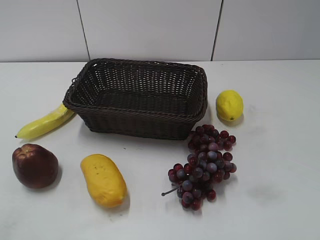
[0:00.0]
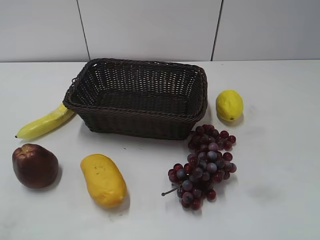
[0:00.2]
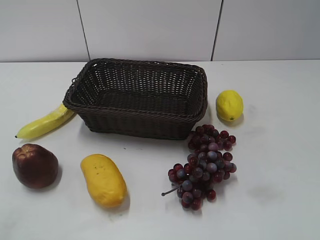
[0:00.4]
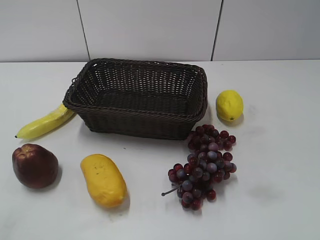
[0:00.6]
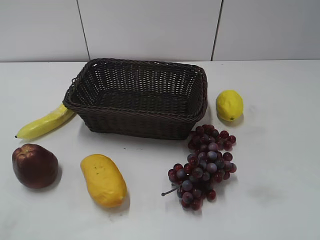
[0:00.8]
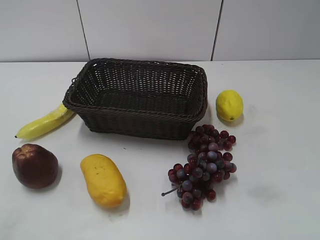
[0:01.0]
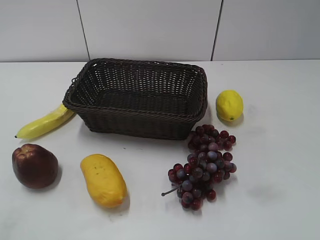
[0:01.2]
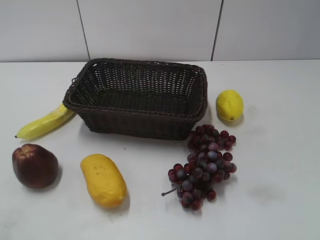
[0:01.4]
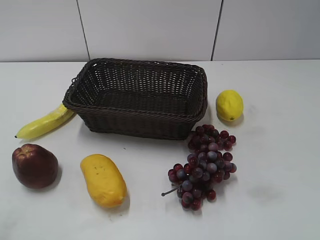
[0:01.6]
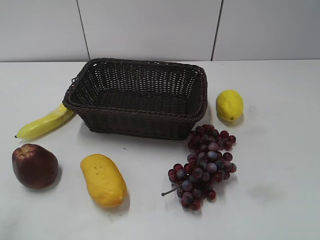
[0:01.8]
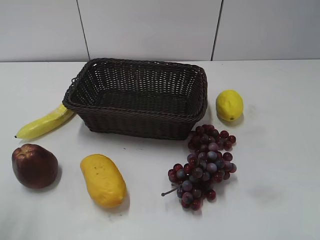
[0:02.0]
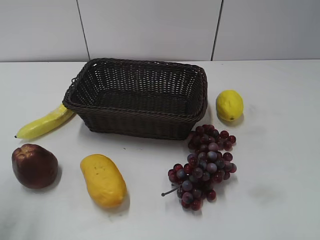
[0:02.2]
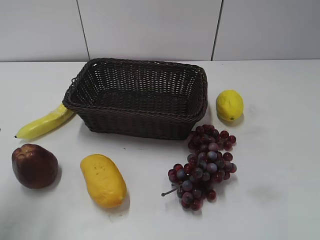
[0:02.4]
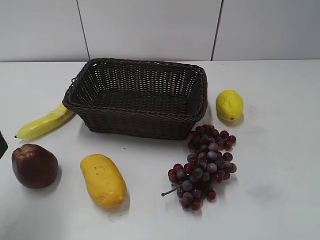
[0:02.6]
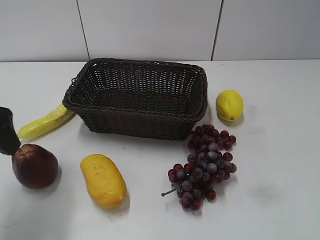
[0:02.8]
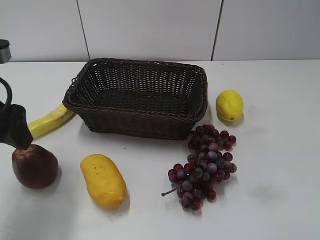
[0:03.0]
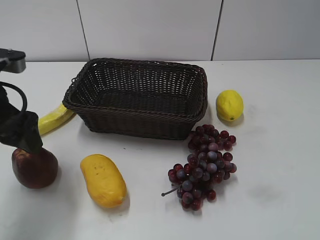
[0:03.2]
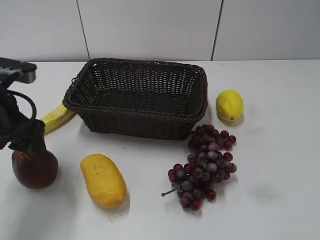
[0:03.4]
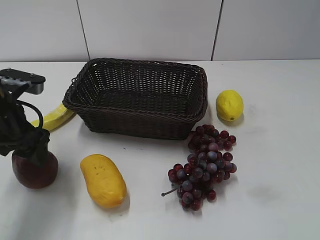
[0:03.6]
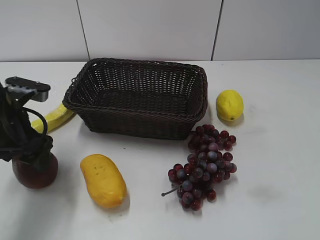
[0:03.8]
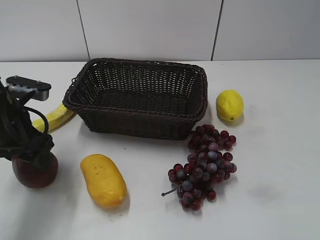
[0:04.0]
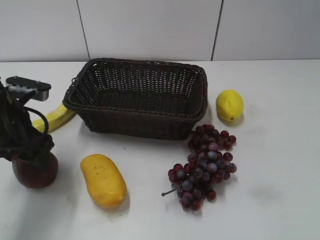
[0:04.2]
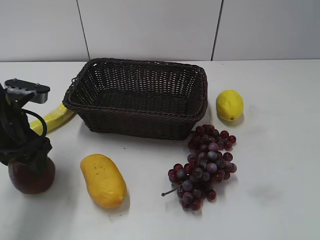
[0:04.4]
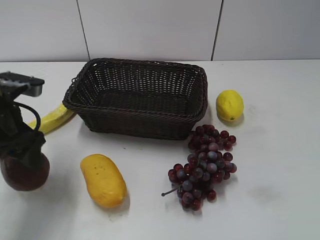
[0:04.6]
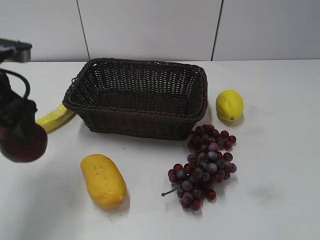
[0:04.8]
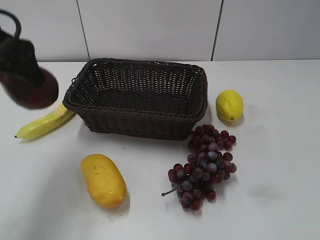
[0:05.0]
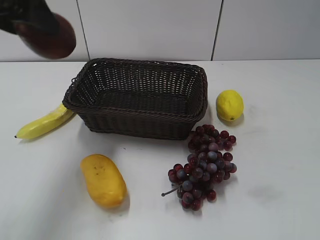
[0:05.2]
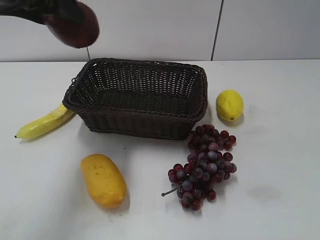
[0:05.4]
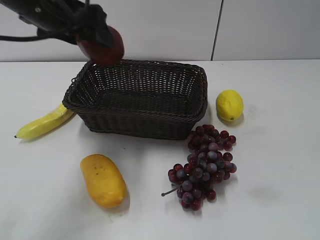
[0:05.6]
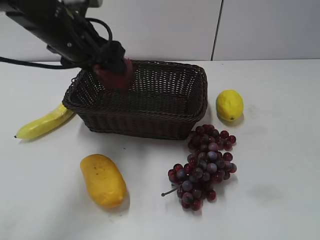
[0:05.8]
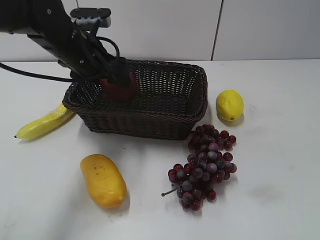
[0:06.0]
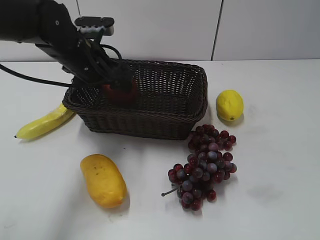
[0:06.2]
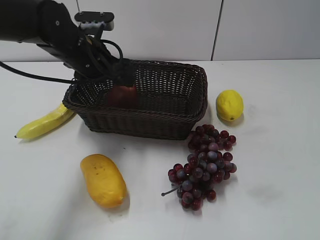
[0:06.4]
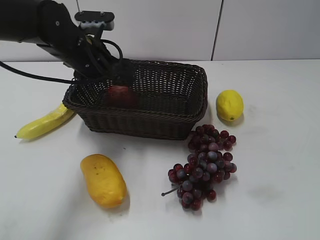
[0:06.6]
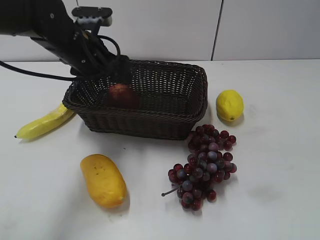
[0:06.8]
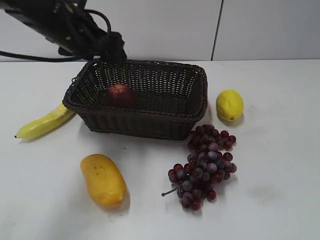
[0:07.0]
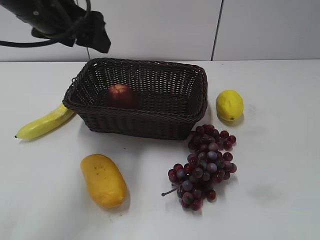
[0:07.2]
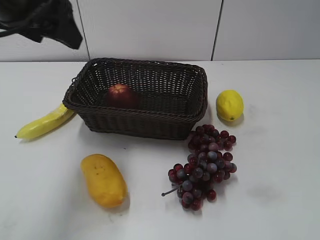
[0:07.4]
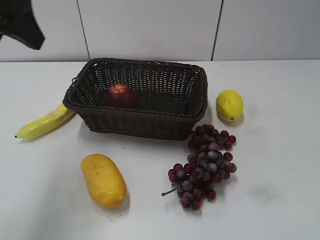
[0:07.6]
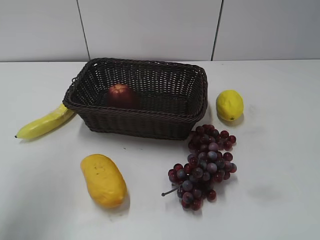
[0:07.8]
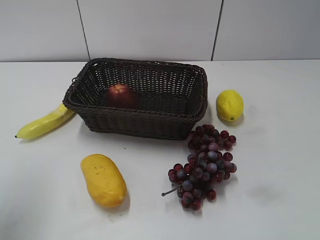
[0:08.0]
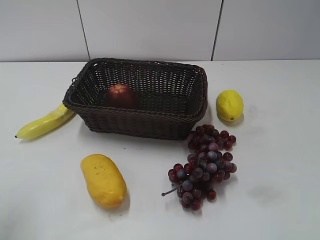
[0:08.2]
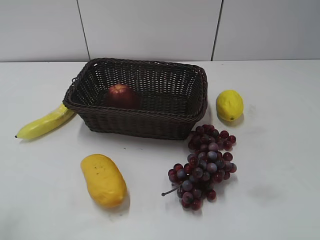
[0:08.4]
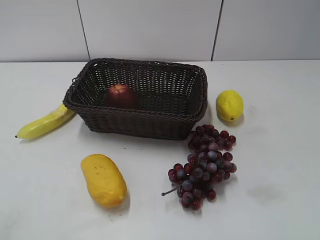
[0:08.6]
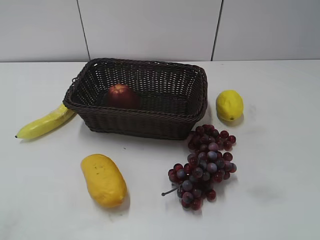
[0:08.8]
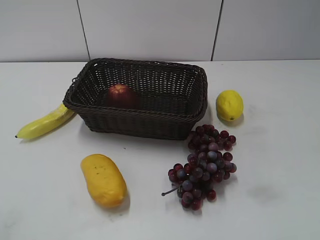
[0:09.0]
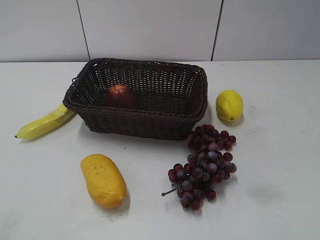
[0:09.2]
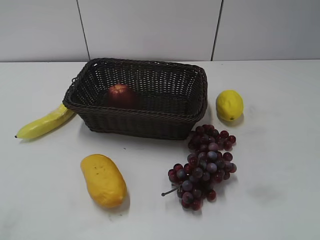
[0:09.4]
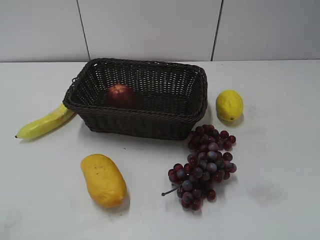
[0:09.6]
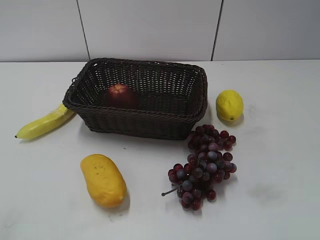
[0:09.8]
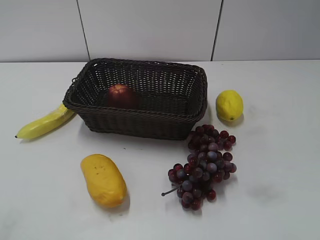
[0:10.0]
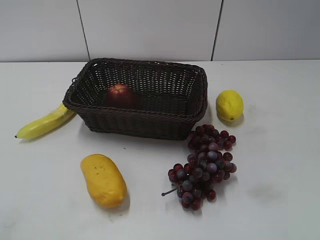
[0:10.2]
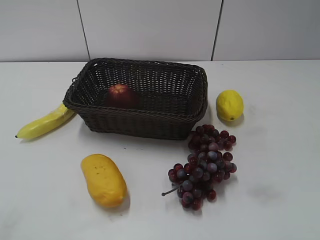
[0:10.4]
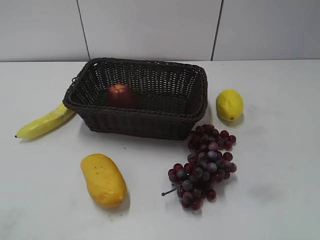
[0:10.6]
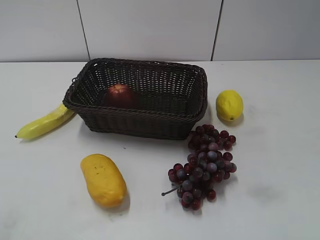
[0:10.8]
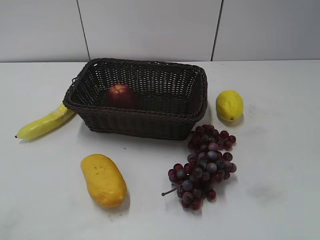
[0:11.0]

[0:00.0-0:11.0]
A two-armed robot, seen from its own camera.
Step, 0:02.4 to 0:04.0: Grasp the apple with left gripper.
Step, 0:04.2 to 0:06.4: Place the apple in the basket with left gripper.
0:01.6 to 0:03.2: The left gripper travels forward and to the right by approximately 20 cm.
0:03.2 to 0:04.8: The left gripper travels downward and back again, approximately 5 cm each way, and closes its fingers.
0:04.8 to 0:06.2: The left gripper is displaced forward and to the right by some 15 cm, and moves roughly 10 cm upward and comes back.
0:06.2 to 0:07.8: The left gripper is displaced upward, to the left and backward by about 25 cm.
0:07.8 to 0:09.4: The left gripper heads backward, covering about 25 cm.
